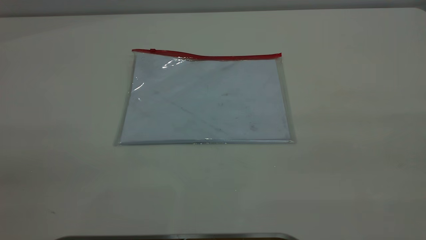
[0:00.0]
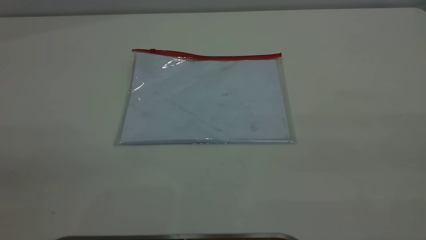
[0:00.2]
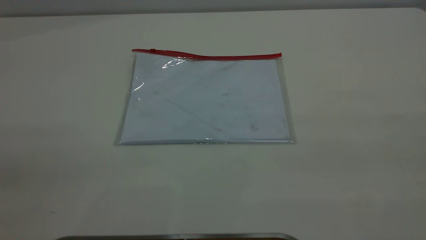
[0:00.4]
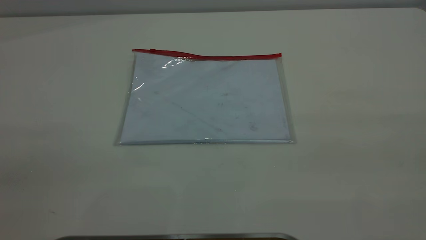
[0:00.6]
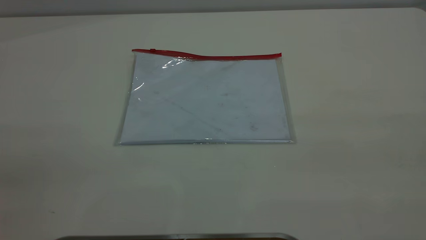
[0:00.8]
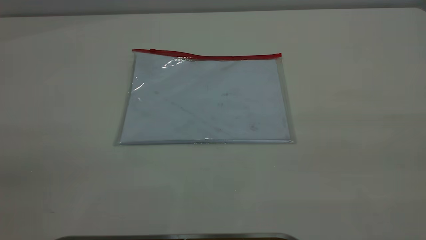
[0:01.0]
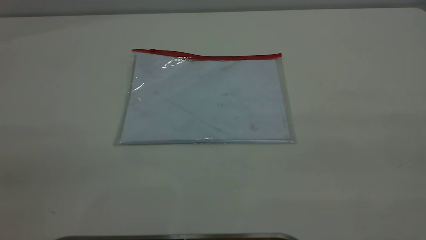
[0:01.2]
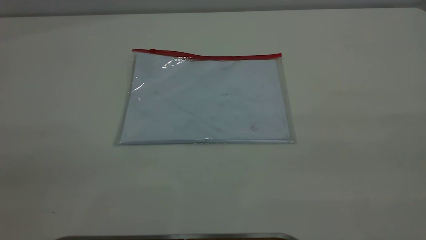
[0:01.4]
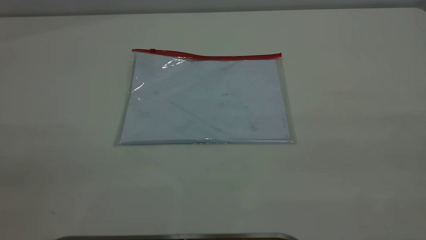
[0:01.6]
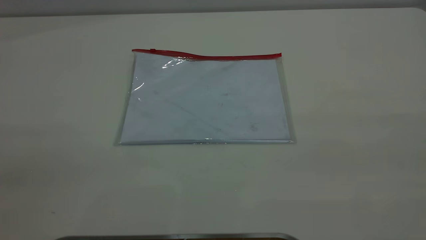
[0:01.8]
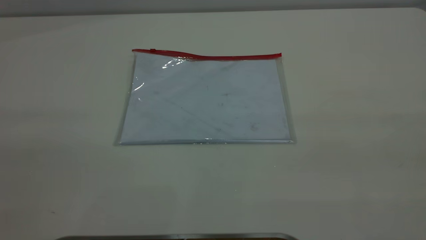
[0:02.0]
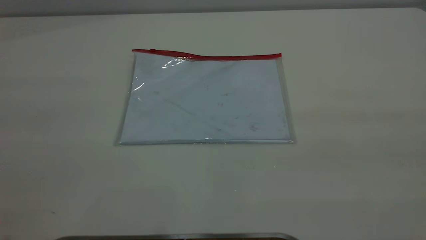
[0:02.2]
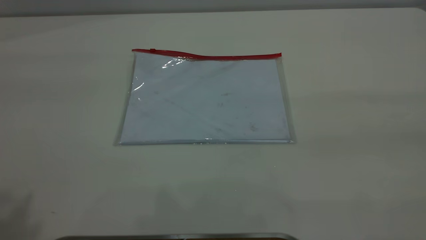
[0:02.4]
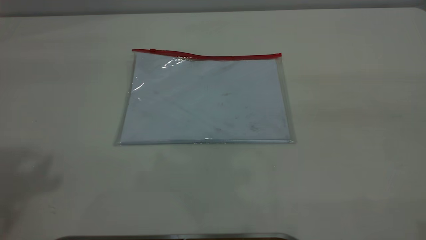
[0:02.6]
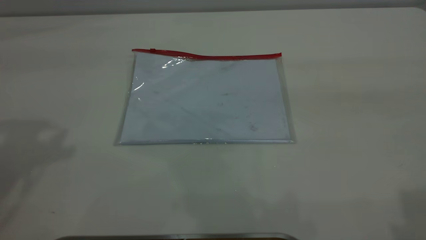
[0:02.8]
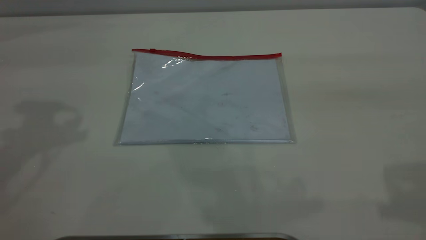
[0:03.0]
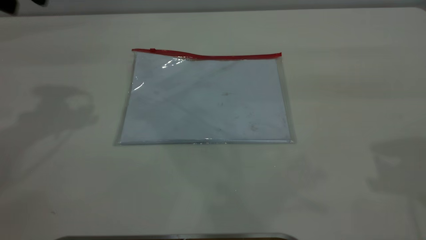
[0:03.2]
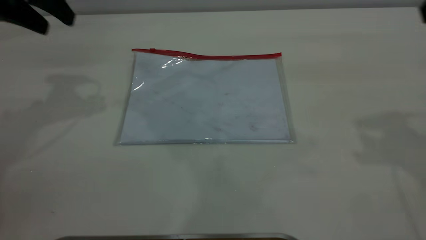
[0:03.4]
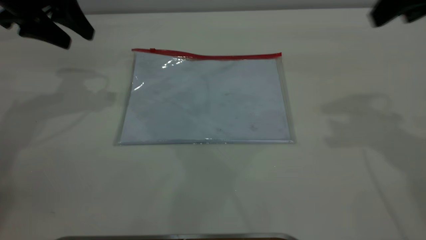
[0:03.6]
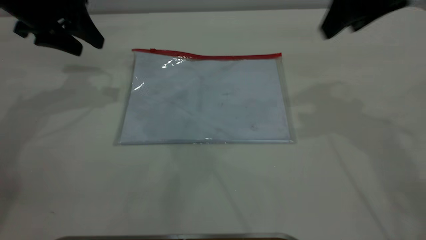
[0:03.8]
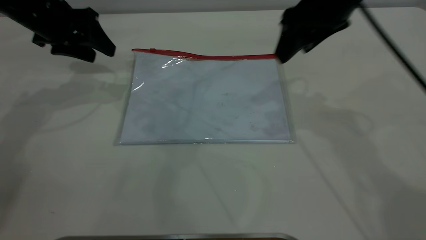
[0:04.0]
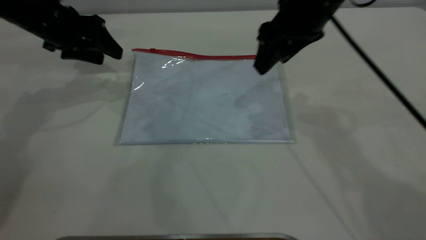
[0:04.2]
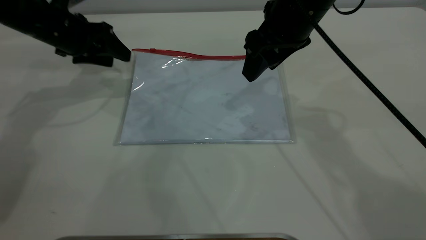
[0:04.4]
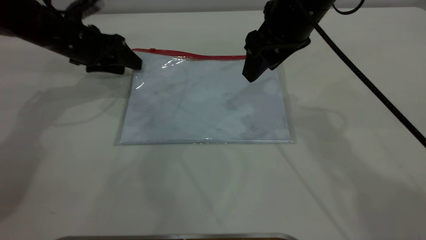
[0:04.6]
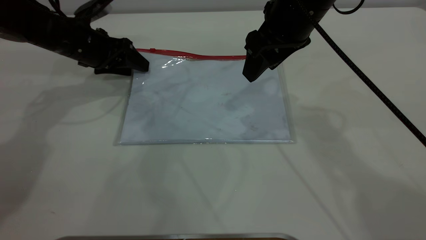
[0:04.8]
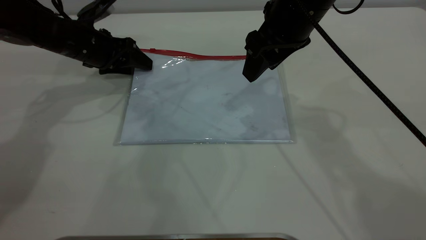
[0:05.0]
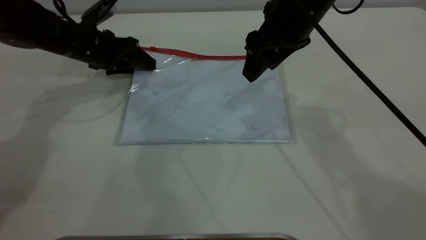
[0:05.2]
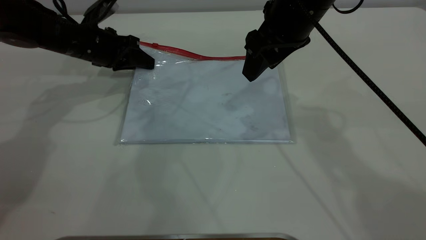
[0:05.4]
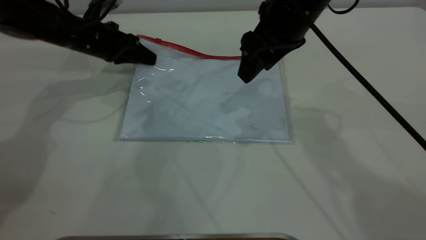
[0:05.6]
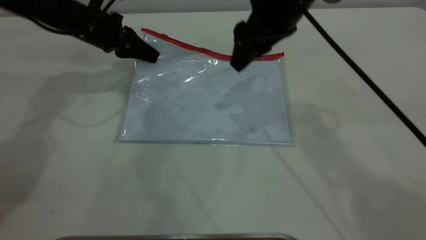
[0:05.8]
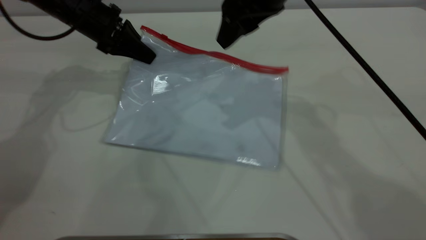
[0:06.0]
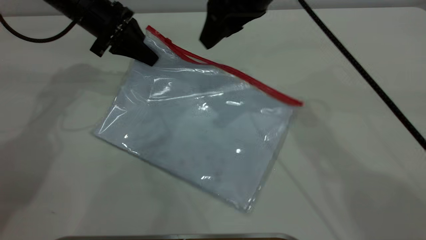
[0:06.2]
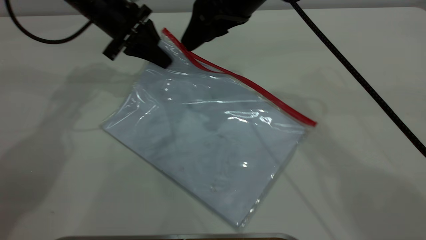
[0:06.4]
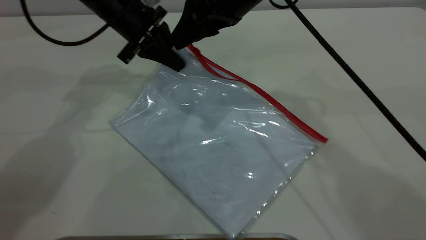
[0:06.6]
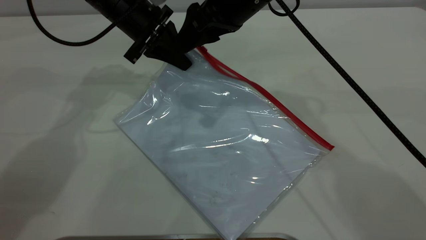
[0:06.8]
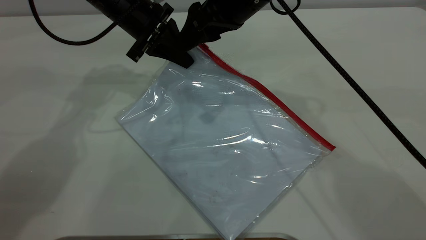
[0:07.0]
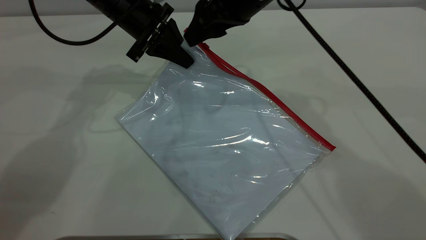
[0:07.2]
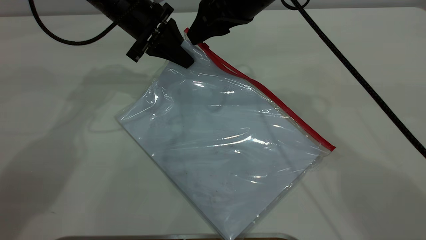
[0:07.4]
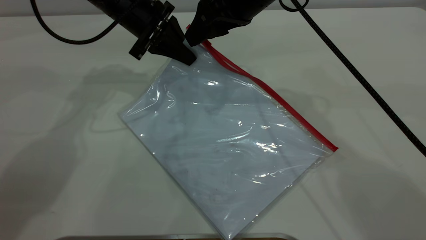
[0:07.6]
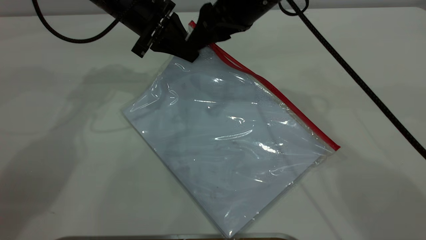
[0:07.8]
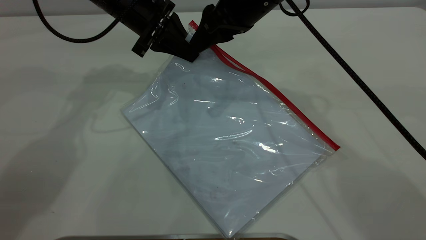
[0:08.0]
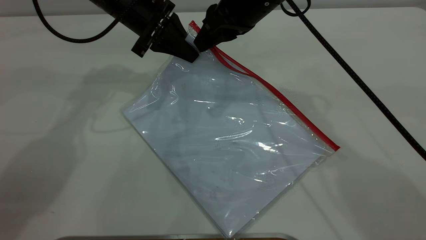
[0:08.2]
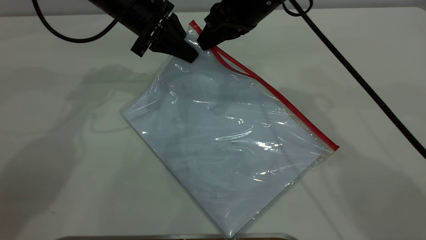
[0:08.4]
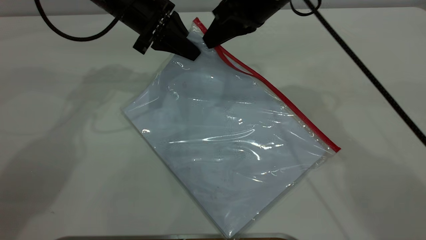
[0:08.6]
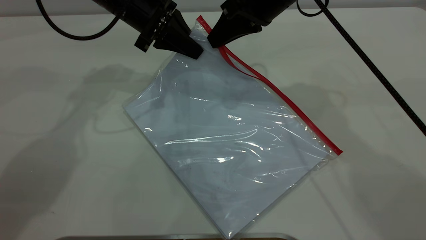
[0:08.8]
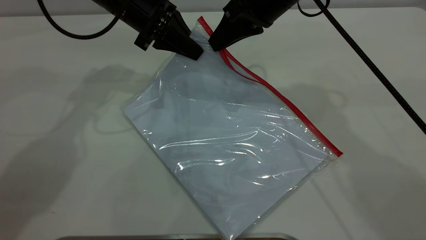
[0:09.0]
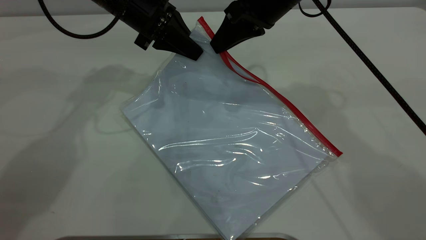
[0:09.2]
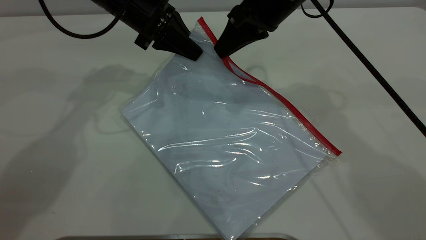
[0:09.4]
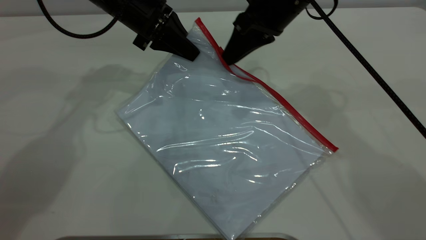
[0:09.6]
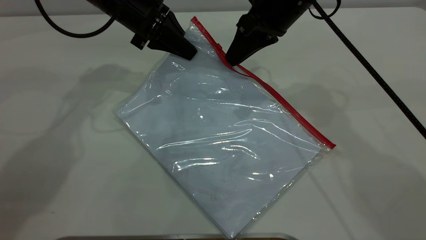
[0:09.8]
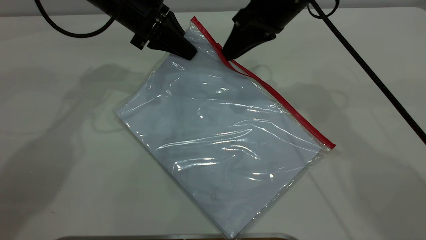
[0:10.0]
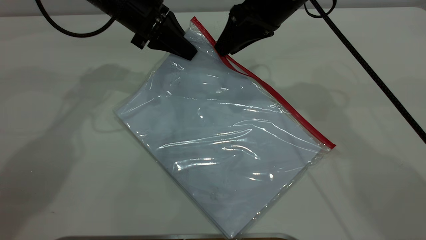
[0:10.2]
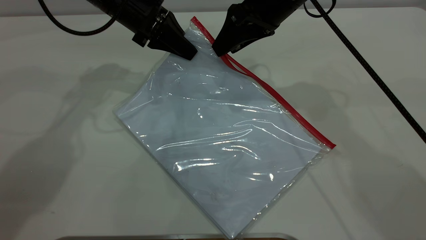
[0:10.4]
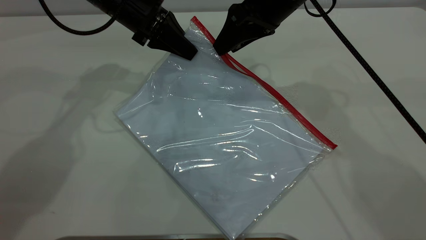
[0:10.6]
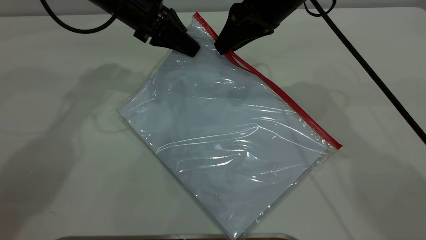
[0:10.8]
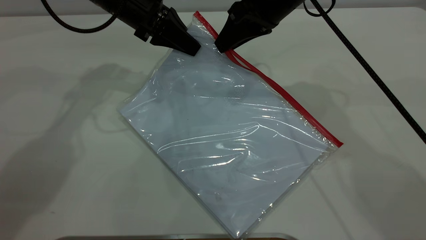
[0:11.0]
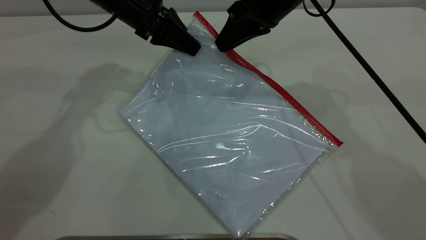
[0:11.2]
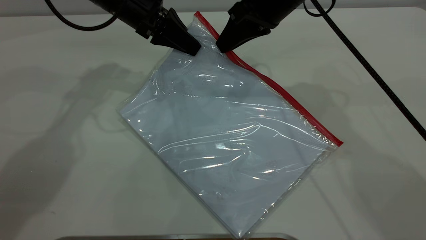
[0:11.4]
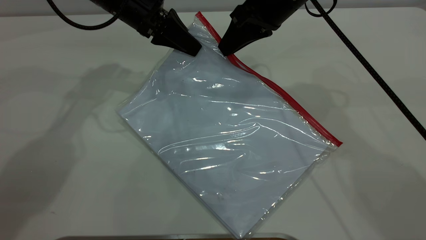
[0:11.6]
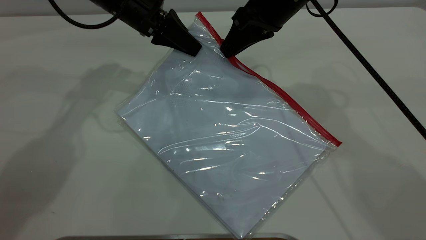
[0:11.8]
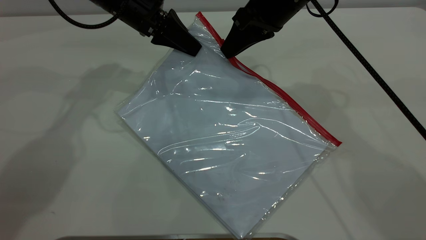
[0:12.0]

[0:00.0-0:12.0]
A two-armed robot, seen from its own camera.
Step, 0:00.0 to 0:05.8: Pick up the transparent plastic bag with the left gripper.
0:00.0 to 0:01.6: The two grippers keep their place.
0:03.0 to 0:04.4: The left gripper is displaced downward and forward by some 25 cm. Meanwhile the right gripper moves to the left, forward and downward, roughly 30 cm.
0:04.4 to 0:06.0: The right gripper shifts by some 5 cm. The left gripper shifts by some 5 cm, and closes.
0:06.0 to 0:07.6: The left gripper is displaced to the right by about 10 cm.
0:07.6 to 0:09.0: The right gripper closes its fingers.
0:09.0 to 0:10.4: The right gripper opens up.
0:10.4 to 0:12.0: The right gripper closes.

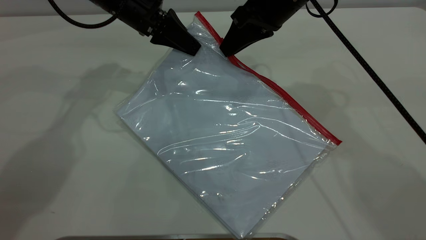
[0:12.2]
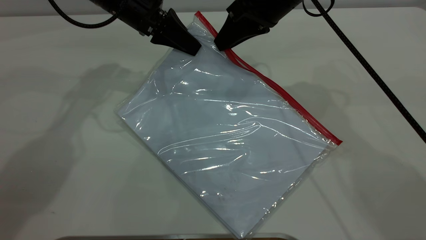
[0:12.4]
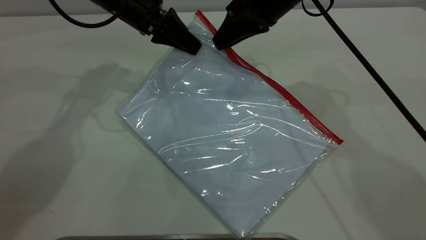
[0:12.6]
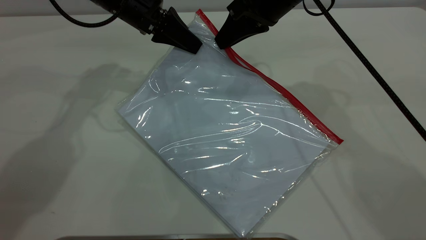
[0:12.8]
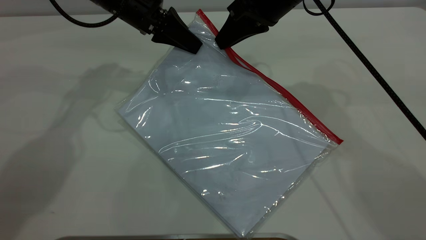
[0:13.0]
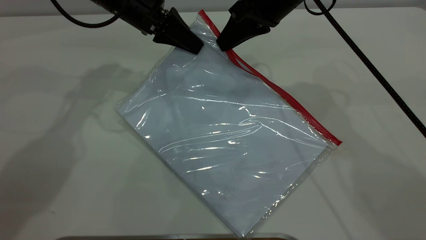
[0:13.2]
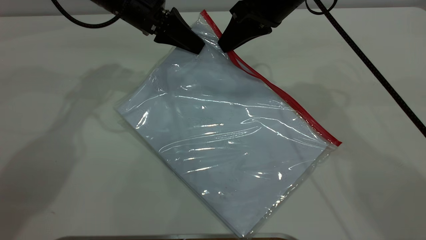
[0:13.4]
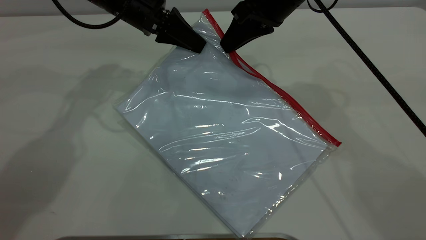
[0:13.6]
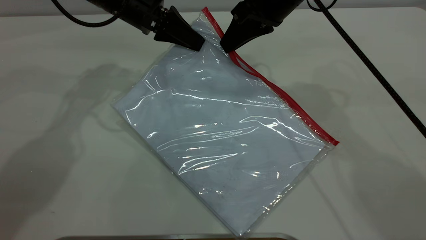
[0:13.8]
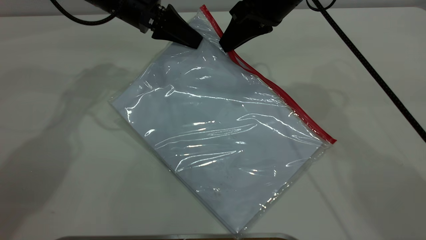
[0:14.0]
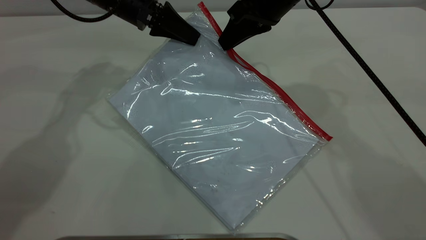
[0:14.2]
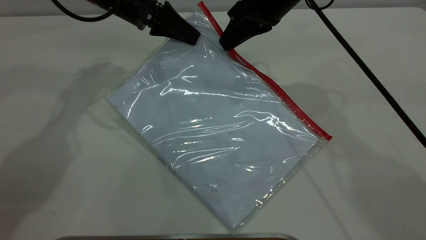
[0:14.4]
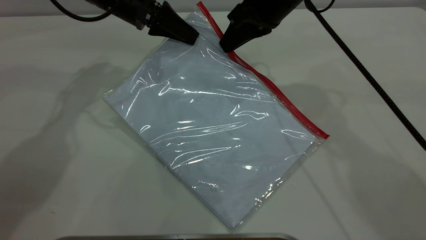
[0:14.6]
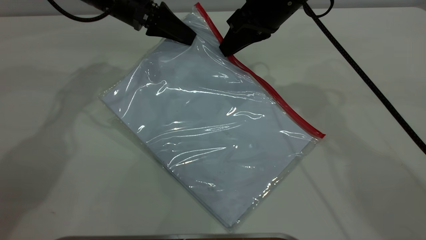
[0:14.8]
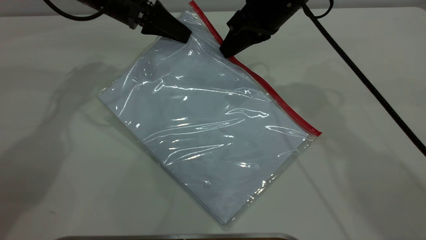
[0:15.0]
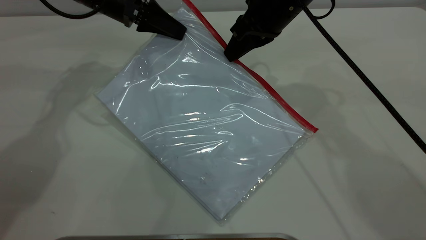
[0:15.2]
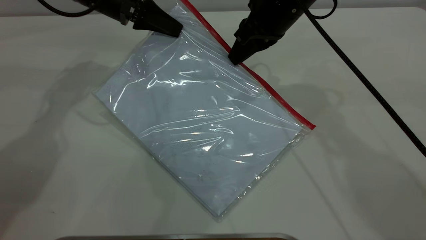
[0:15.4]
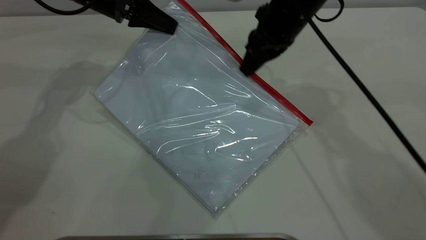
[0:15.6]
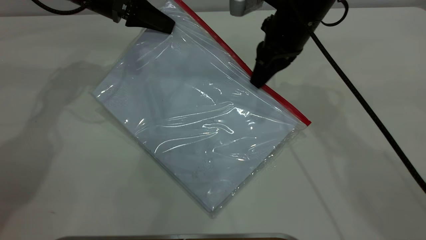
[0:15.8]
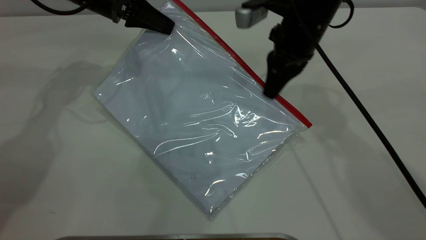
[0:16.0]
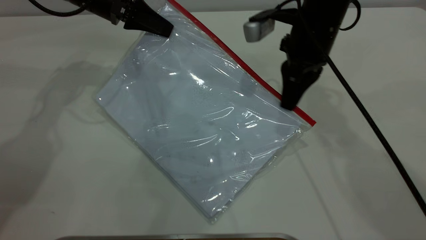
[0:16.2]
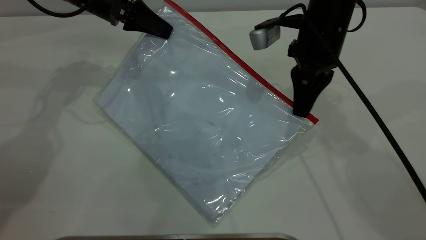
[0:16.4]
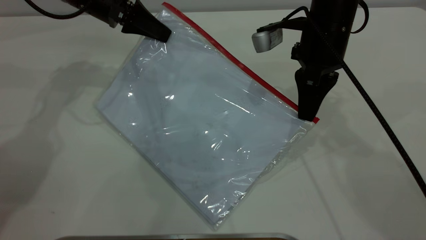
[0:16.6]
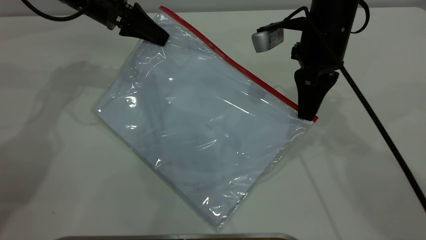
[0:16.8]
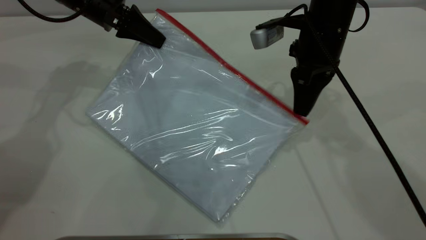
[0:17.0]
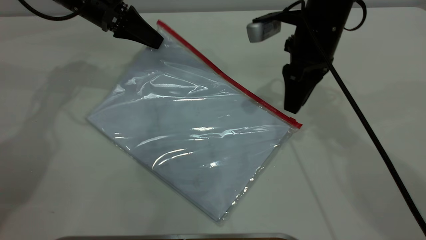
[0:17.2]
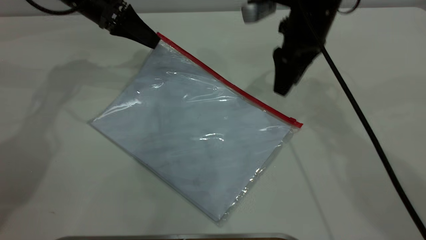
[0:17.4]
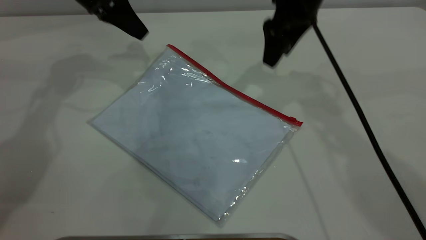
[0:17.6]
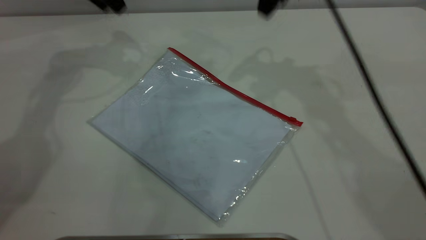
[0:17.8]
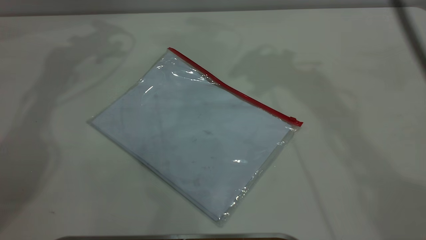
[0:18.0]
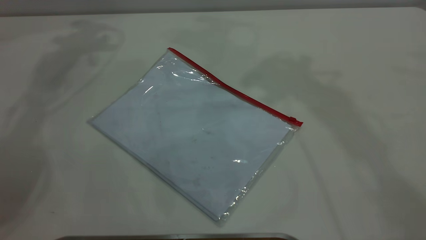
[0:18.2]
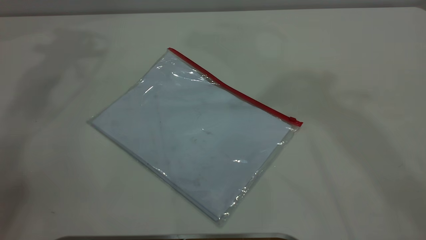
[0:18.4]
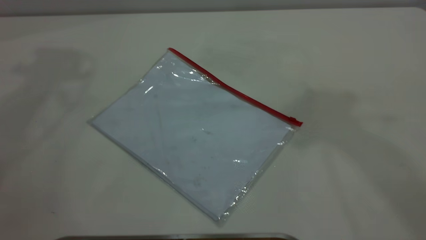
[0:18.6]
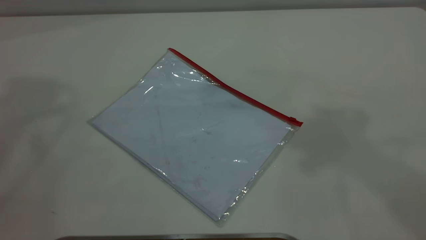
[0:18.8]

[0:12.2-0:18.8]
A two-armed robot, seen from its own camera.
Step, 0:12.2 to 0:17.2: Pulling up the zipper on the transparent plastic bag with the right gripper to close it.
Step, 0:17.4 to 0:17.6: Place the transparent plastic bag.
0:12.2 to 0:15.4: The grippers make only small movements.
0:15.4 to 0:17.2: The left gripper opens up, while the right gripper opens its fingers.
0:17.2 to 0:18.8: Both grippers move upward, about 40 cm. The left gripper opens its fingers. The right gripper opens its fingers.
